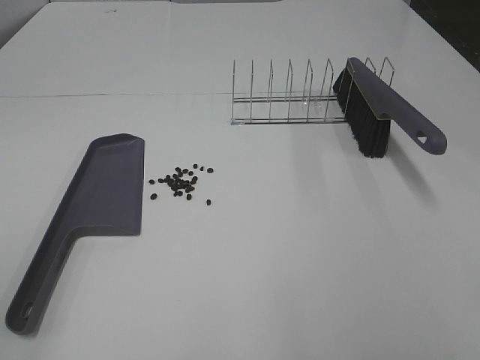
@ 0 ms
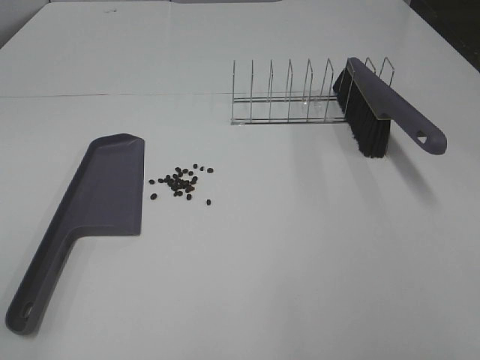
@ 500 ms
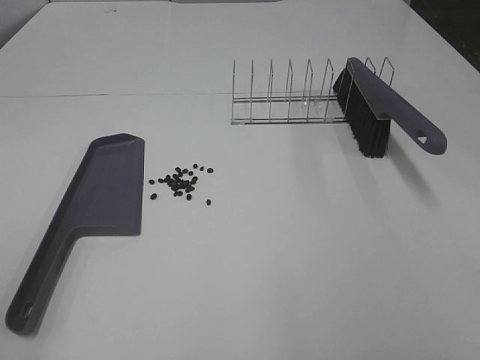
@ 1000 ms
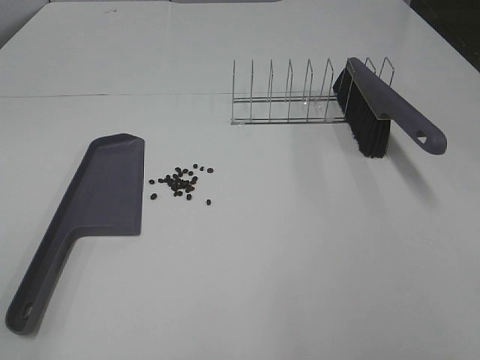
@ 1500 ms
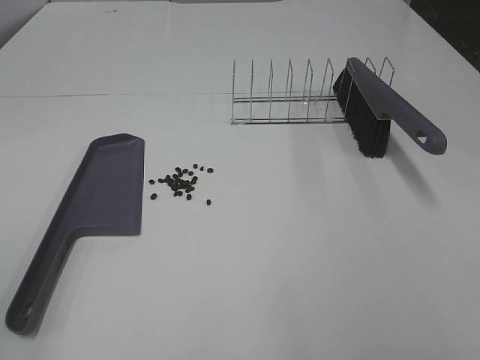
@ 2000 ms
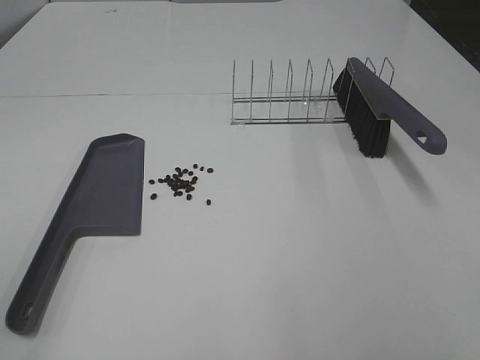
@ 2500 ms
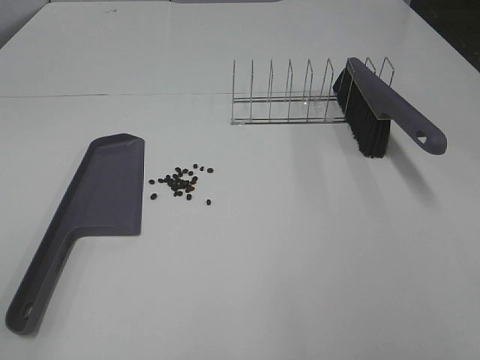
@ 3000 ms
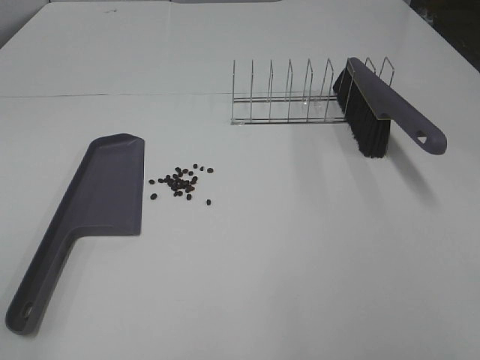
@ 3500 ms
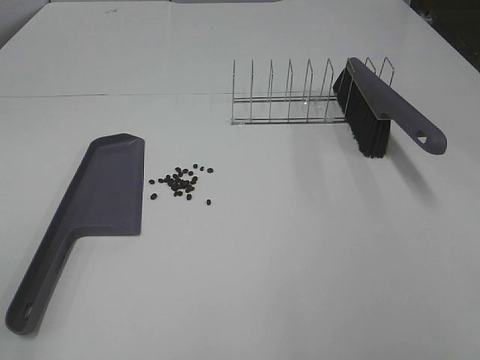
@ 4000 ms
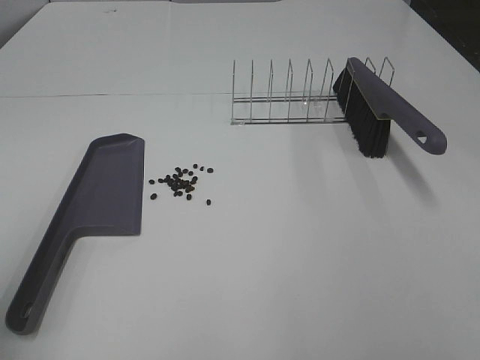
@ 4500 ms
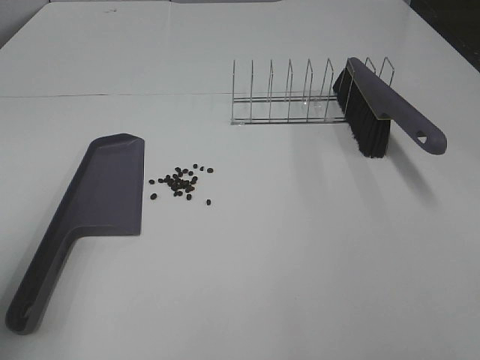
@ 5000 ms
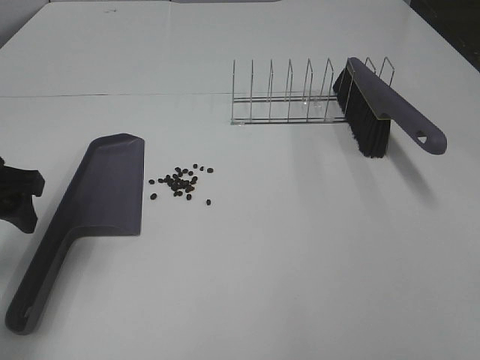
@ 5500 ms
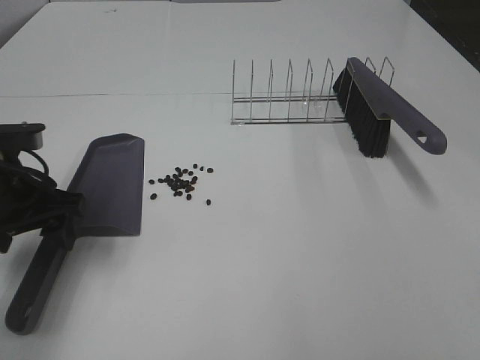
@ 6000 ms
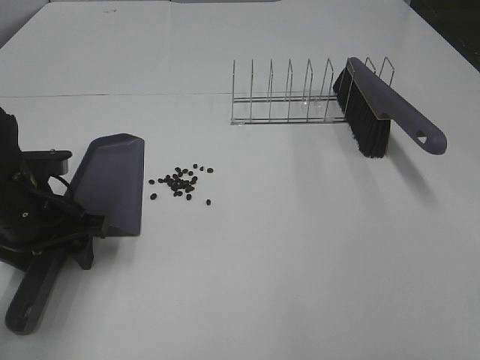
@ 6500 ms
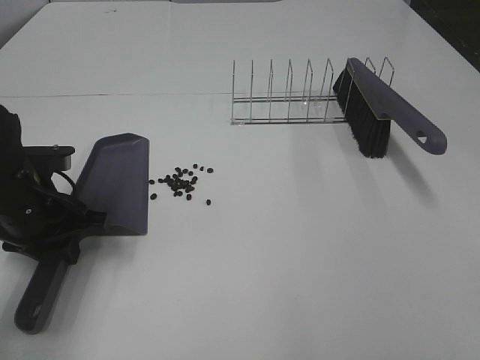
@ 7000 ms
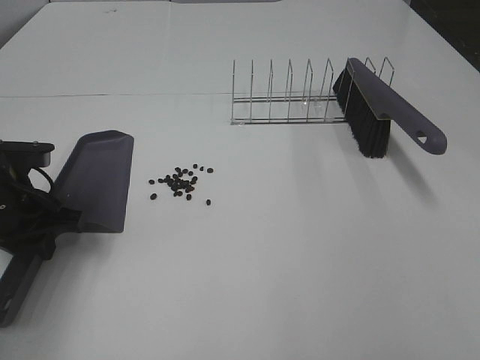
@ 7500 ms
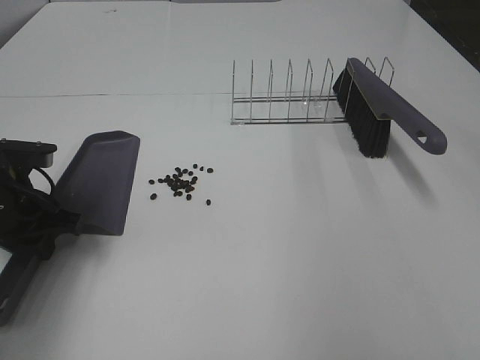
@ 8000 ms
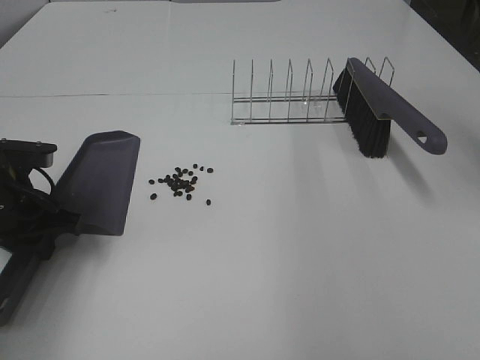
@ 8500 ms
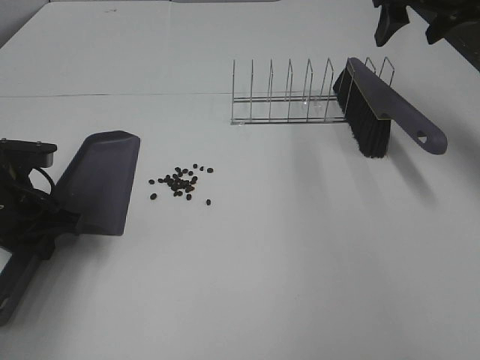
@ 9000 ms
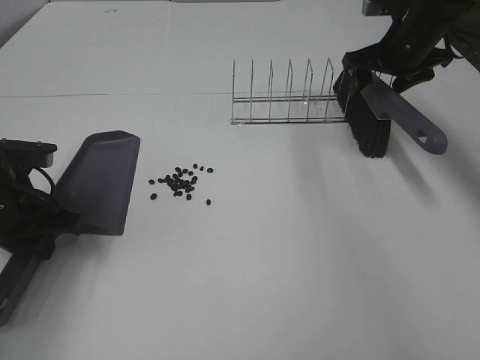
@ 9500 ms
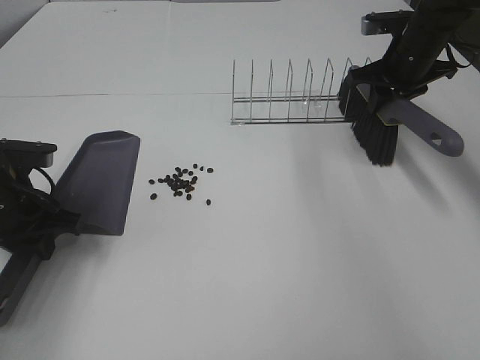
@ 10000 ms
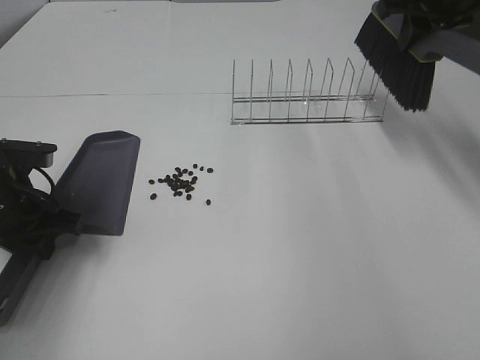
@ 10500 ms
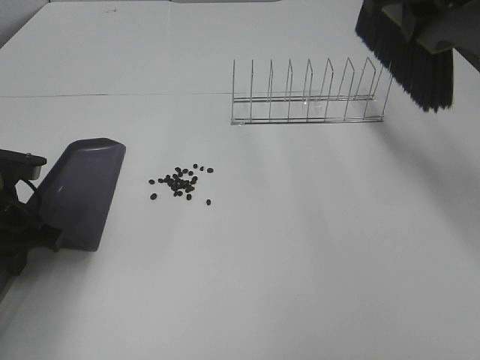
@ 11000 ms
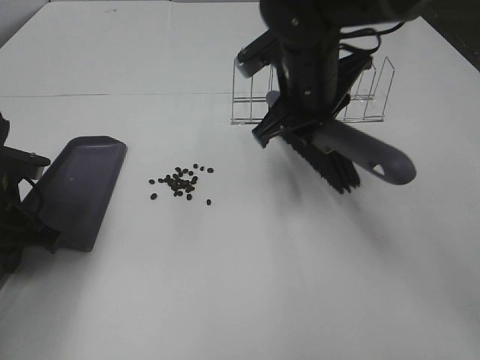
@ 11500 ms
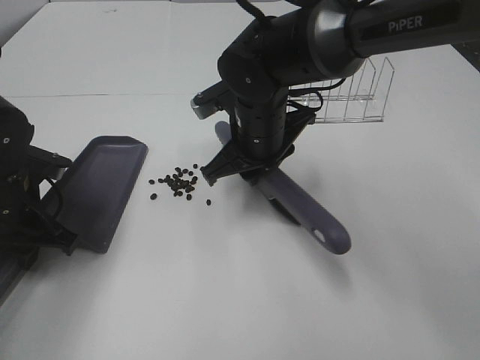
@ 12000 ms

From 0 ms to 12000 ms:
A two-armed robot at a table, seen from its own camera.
Task of the whole recording: Sweep Coffee Bean.
Step, from 0 ms to 7000 ms: Left hand: grab the dustpan.
Step, from 7500 ms to 9500 ms: Right hand:grab the broom.
From 0 ms to 2000 ms: Both grippers stay put.
From 4000 ms to 6000 ms: The left gripper goes about 30 cm forward and downward.
From 6000 ms to 8000 ms: The left gripper shifts by approximately 5 cm, and closes.
From 8000 ms to 10000 ms: The right gripper shifts about 40 cm forward and downward, and closes up.
From 10000 ms to 12000 ms: The right gripper heads to the left and backward, covering about 25 cm.

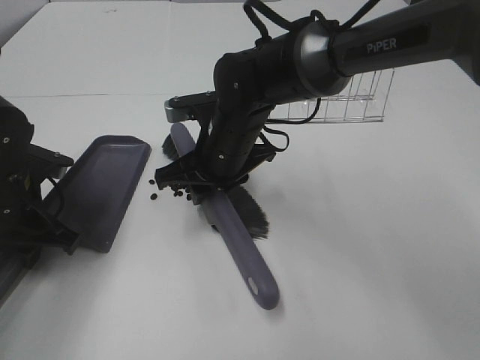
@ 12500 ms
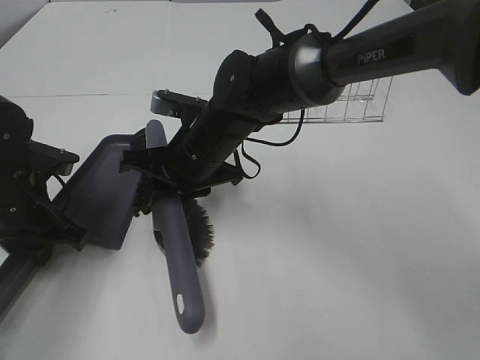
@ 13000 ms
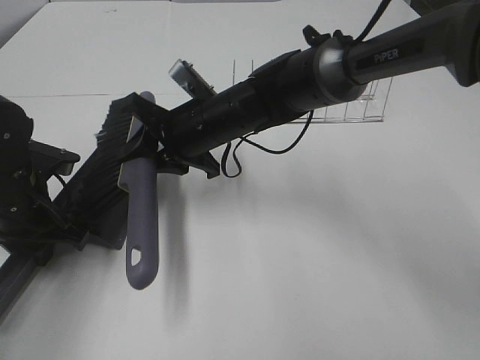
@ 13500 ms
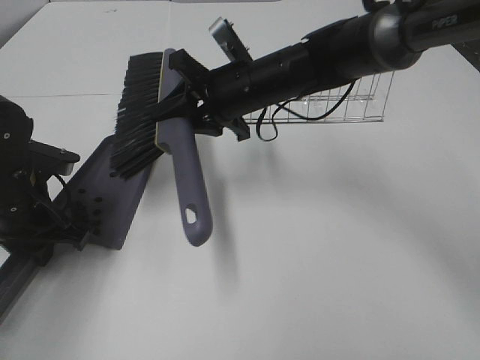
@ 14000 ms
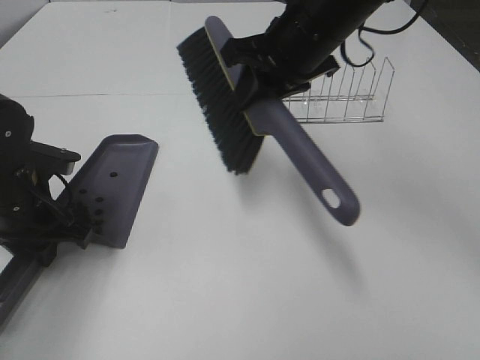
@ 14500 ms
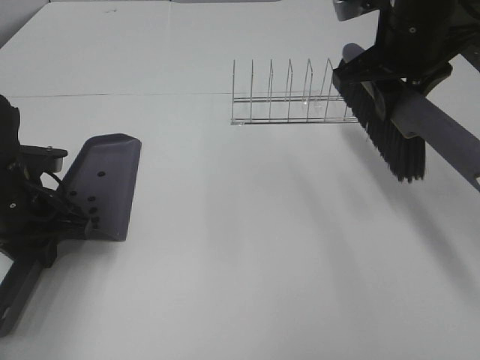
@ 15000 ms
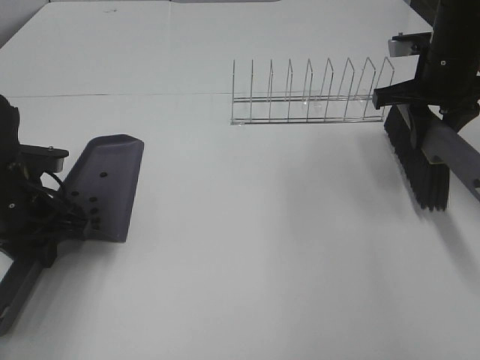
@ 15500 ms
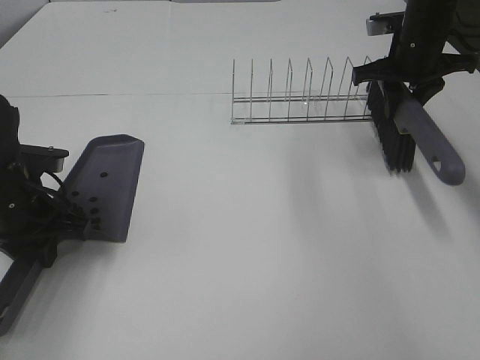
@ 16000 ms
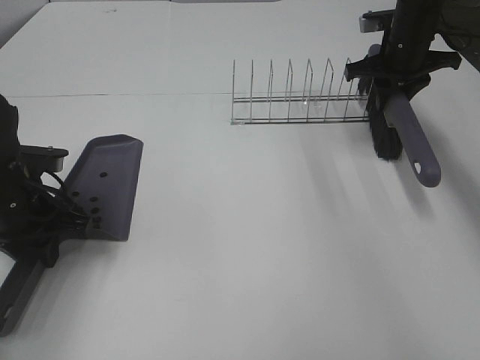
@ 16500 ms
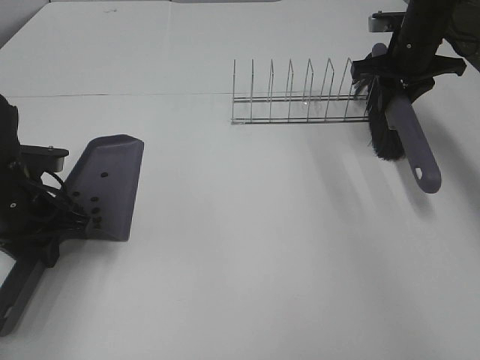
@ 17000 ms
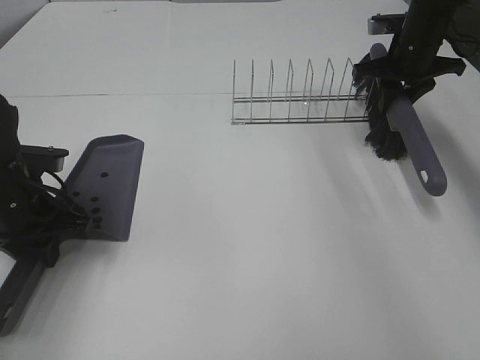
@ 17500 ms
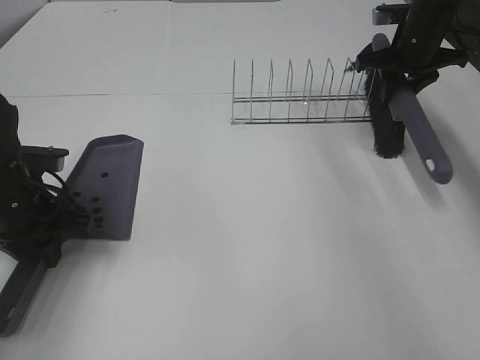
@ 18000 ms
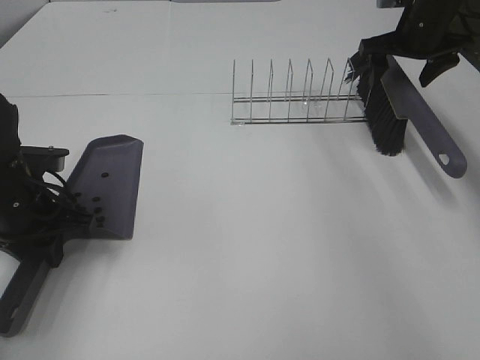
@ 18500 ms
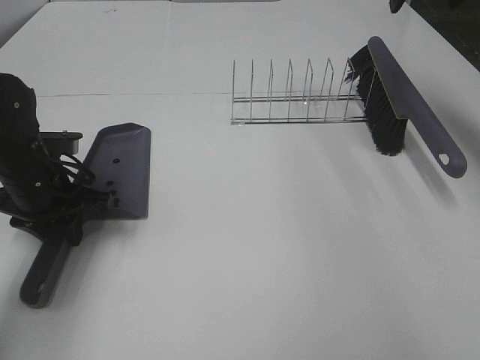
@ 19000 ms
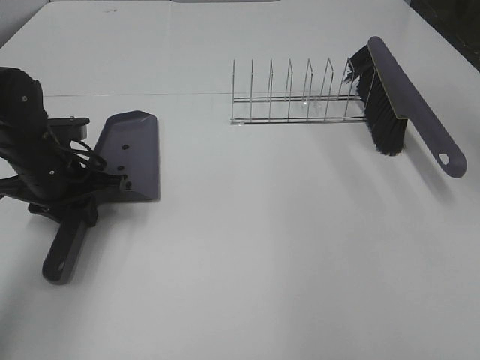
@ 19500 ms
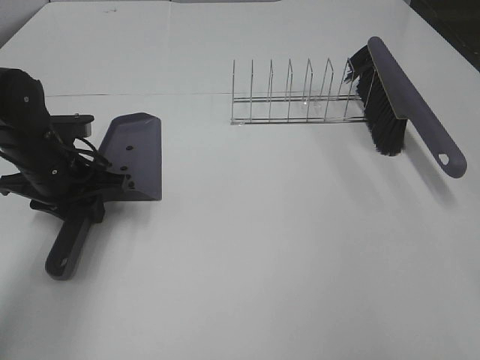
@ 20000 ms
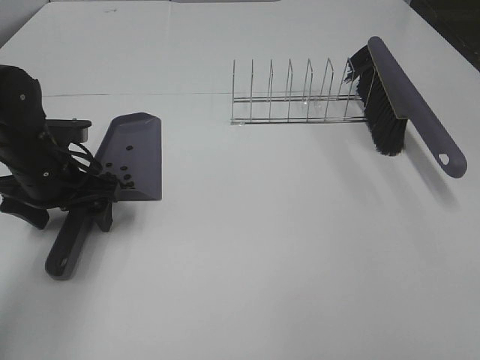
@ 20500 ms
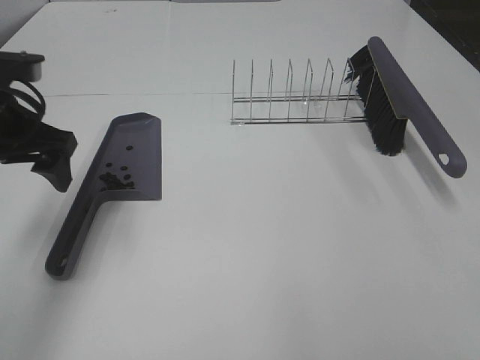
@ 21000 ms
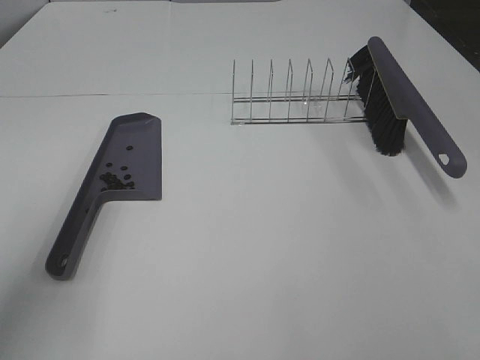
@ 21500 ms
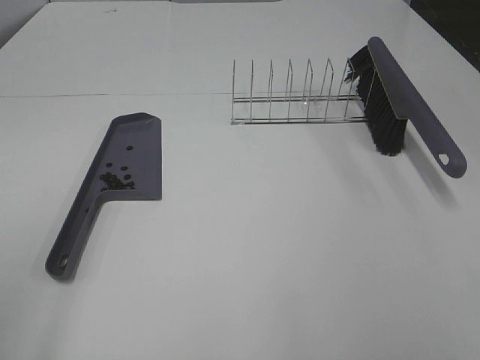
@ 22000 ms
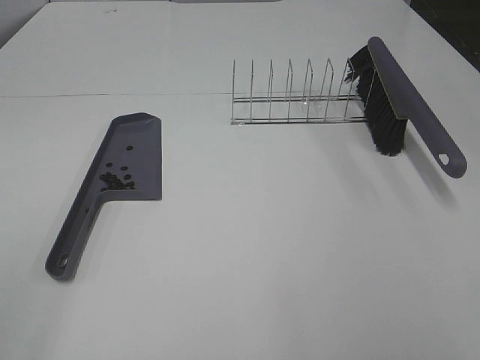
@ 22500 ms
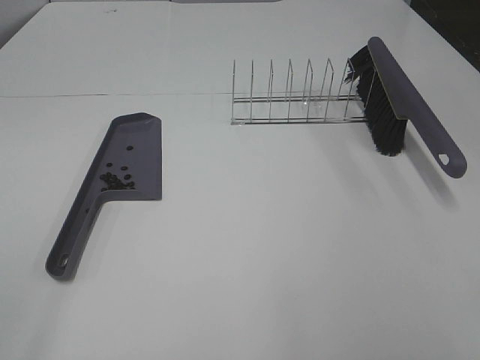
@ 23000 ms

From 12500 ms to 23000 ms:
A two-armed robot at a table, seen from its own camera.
Task of the whole recording: Sweep Coffee Bean.
Step, from 14000 ms to 18000 ms: Right hand:place the broom on the rack.
From 12500 ms to 14500 ms: The right gripper heads upward and to the right, covering about 15 cm.
From 14500 ms to 16500 ms: The right gripper moves to the right, forward and downward, some 25 cm.
From 16500 ms to 19000 ms: The right gripper is displaced upward by about 15 cm, and opens up.
From 19000 ms to 21000 ms: The right gripper heads backward, covering about 50 cm. The left gripper moves upward, roughly 10 cm, and opens.
From 21000 ms to 23000 ms: The left gripper heads backward, covering roughly 30 cm.
